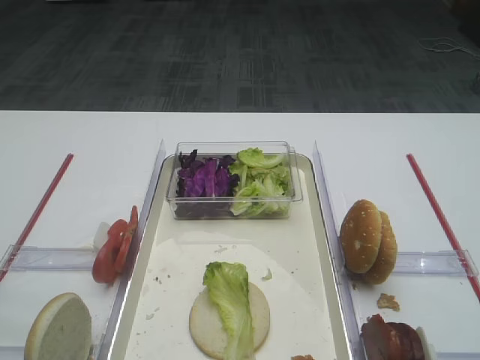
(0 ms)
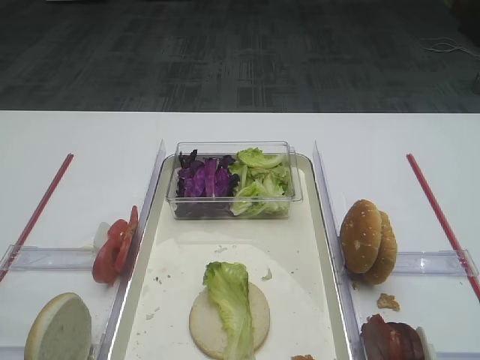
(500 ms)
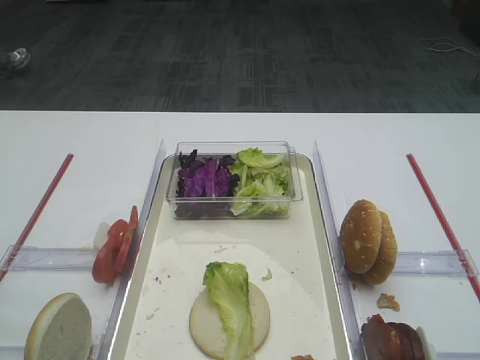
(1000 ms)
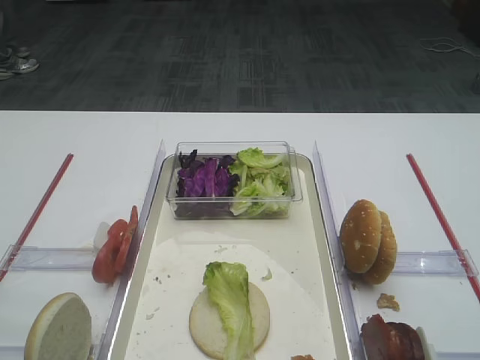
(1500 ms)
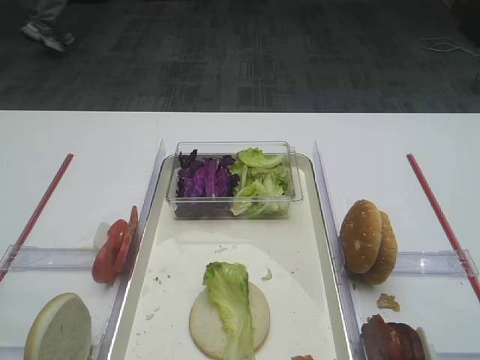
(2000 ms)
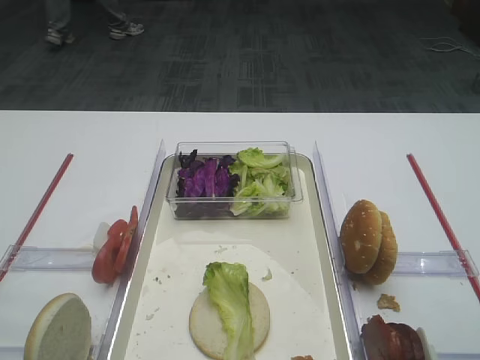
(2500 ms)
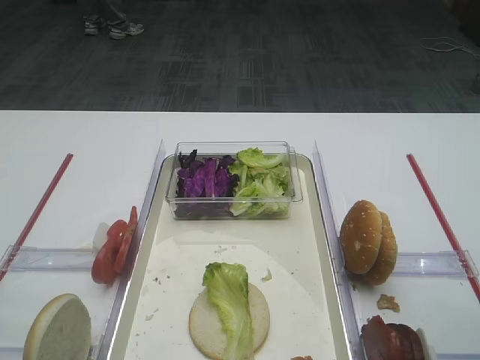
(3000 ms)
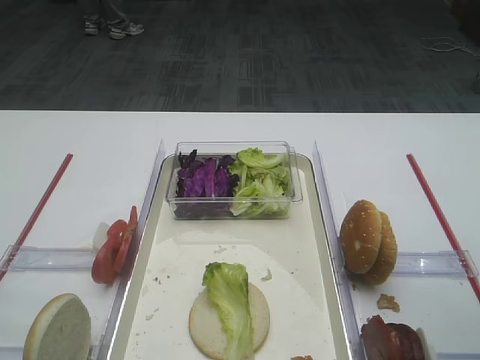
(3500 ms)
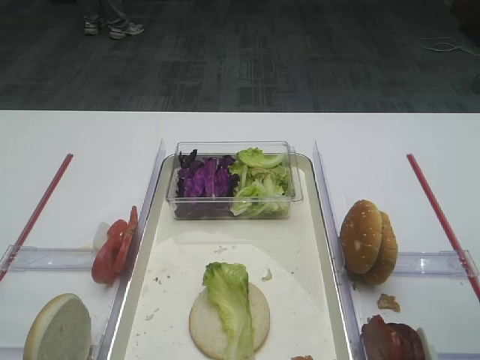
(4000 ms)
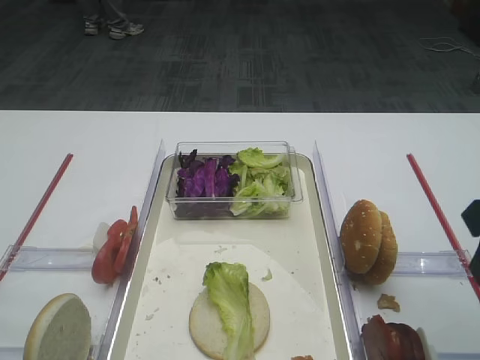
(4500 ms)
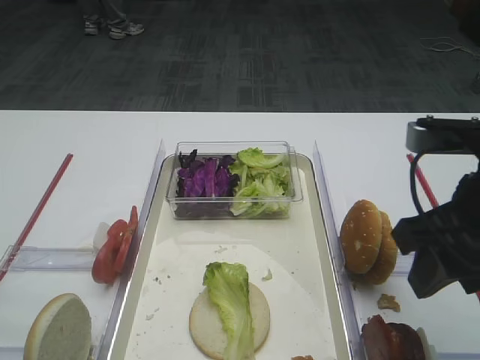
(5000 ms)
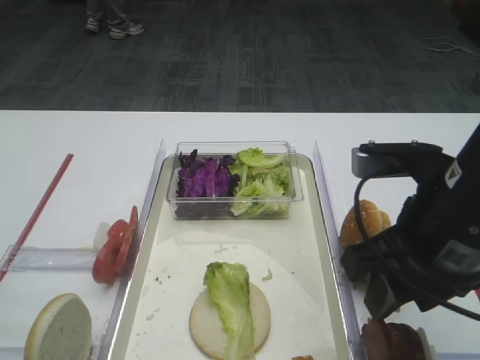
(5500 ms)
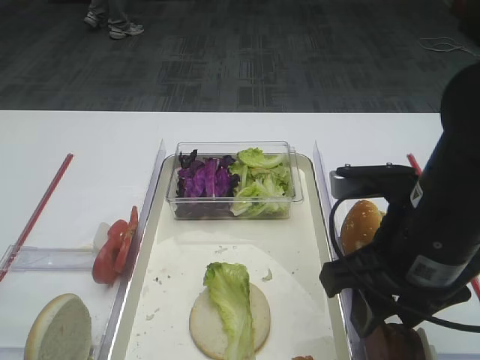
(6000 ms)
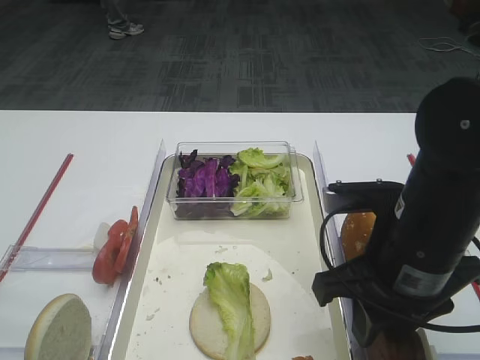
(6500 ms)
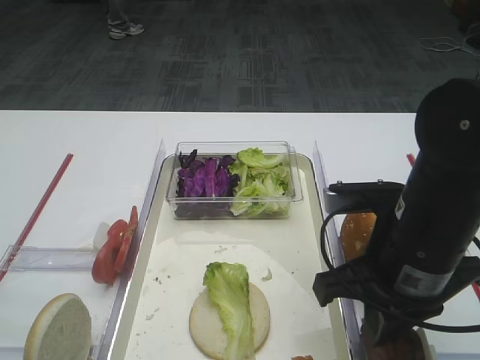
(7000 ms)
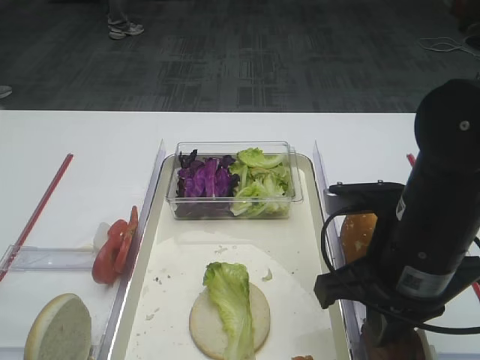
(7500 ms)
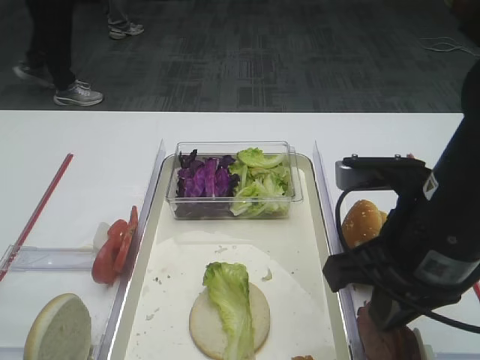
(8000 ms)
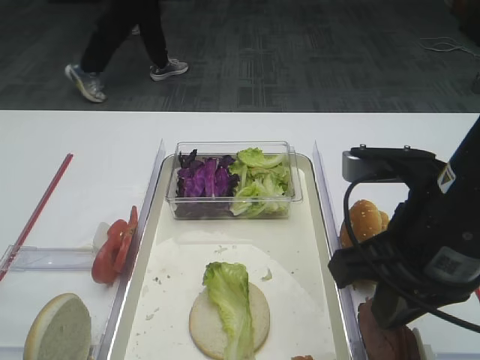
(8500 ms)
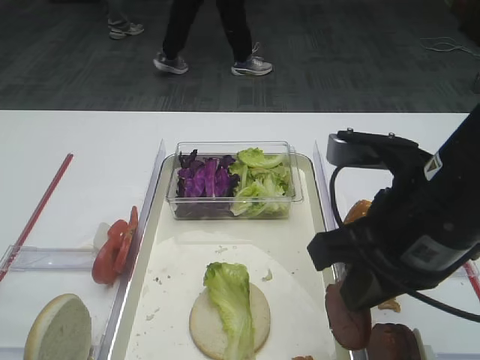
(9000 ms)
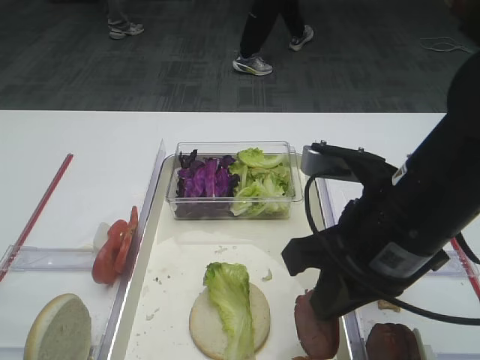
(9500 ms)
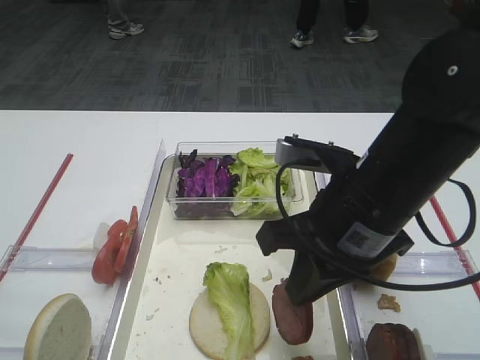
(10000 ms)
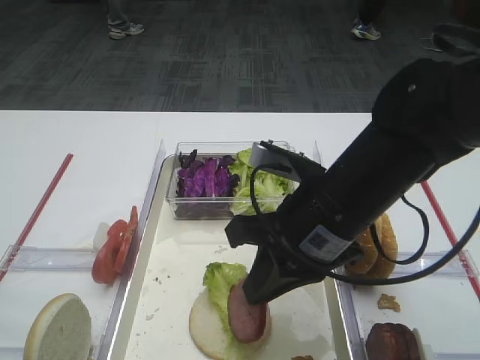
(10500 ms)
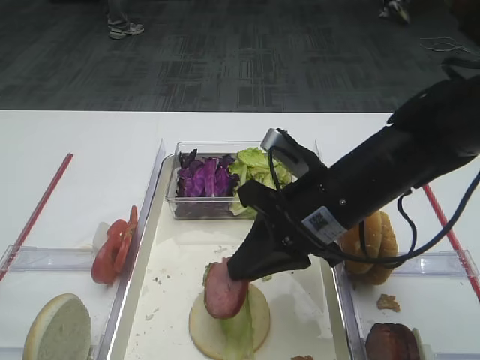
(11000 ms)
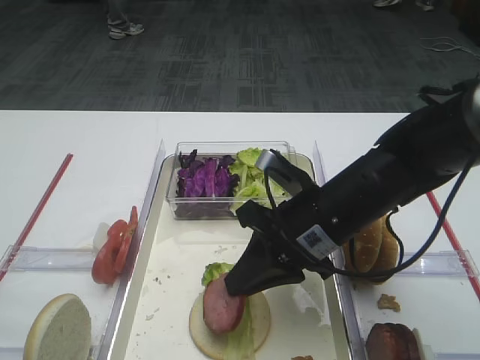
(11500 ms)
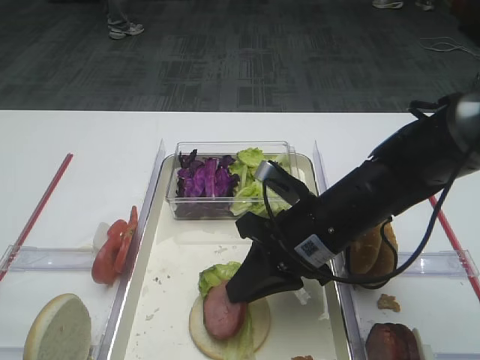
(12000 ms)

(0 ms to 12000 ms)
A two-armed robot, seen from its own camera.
Step, 0 ms - 9000 ms: Pick up the cutlet with the right gripper.
4000 ms - 6000 ms: The right gripper goes approximately 15 cm to the left and downward.
6000 ms - 8000 ms: The right gripper closes.
8000 ms - 10000 ms: The right gripper changes place by approximately 5 cm.
10000 ms - 12000 ms: The right gripper moves downward, about 10 cm.

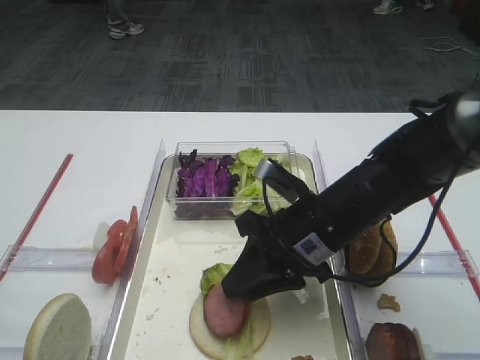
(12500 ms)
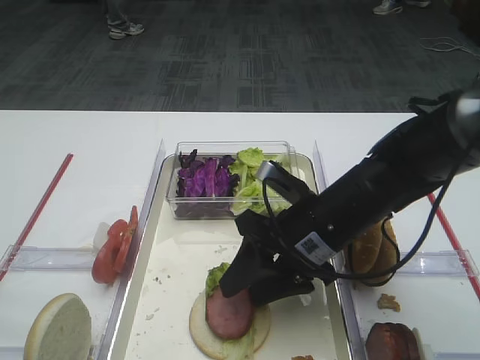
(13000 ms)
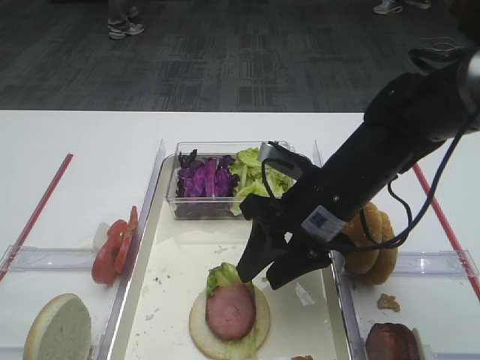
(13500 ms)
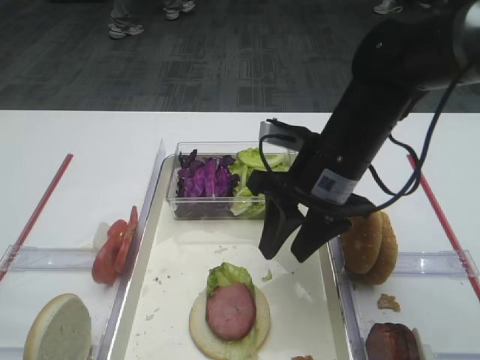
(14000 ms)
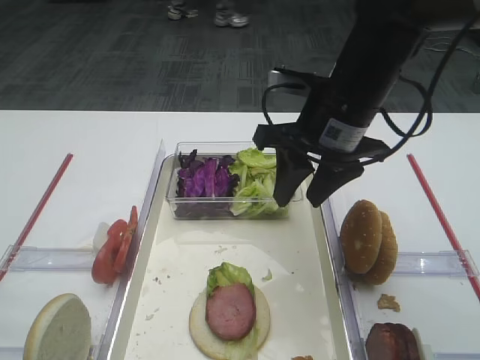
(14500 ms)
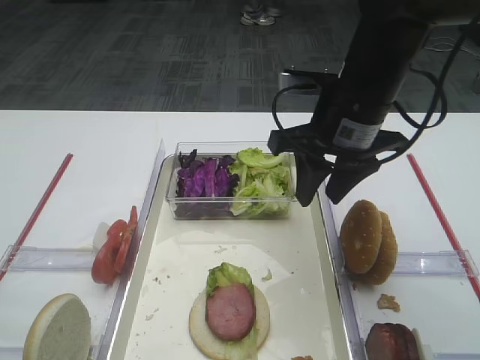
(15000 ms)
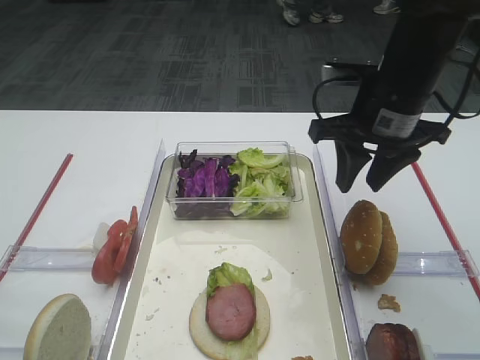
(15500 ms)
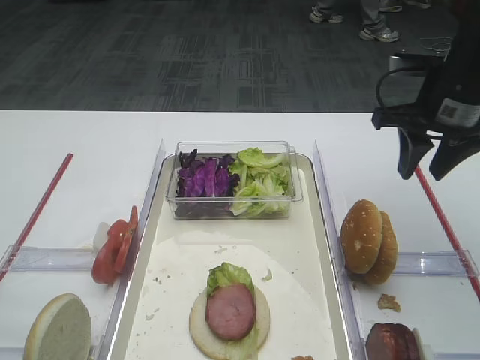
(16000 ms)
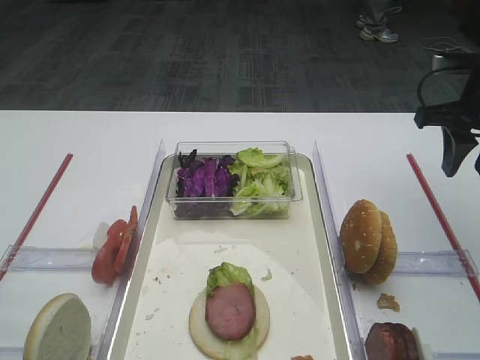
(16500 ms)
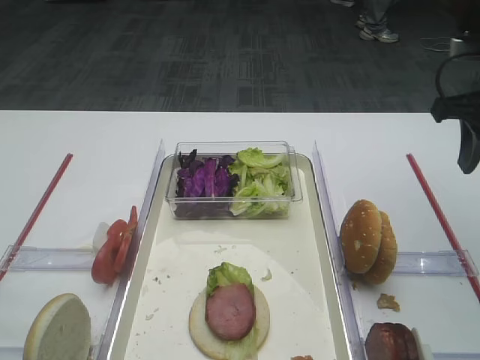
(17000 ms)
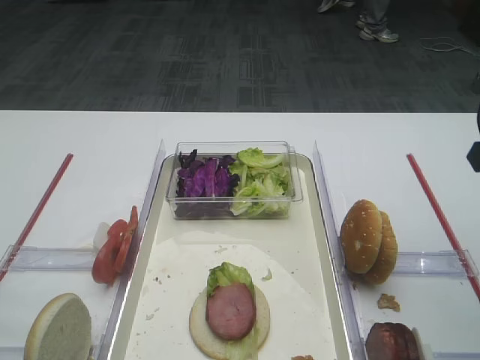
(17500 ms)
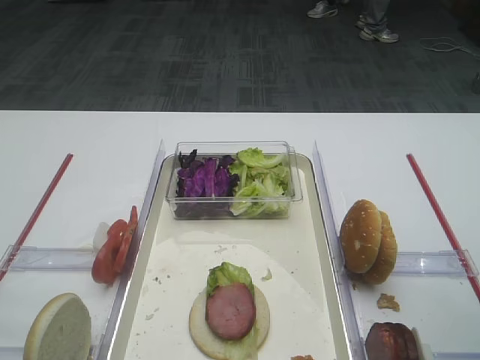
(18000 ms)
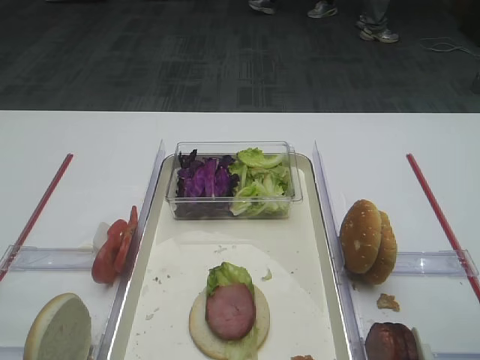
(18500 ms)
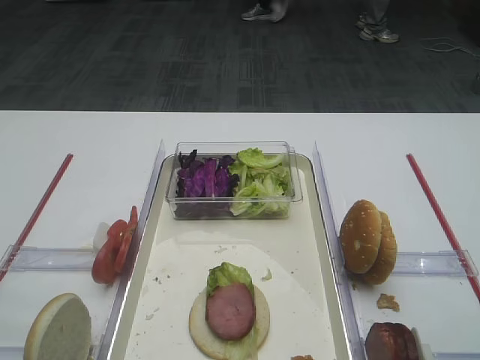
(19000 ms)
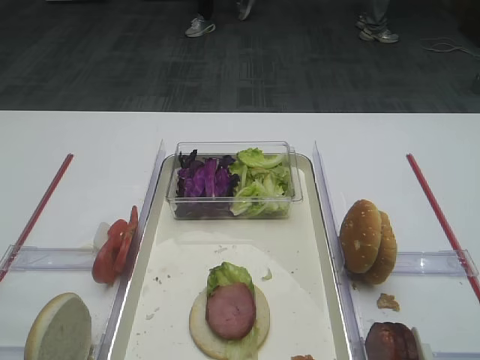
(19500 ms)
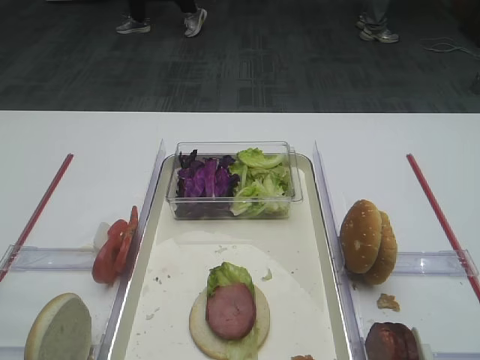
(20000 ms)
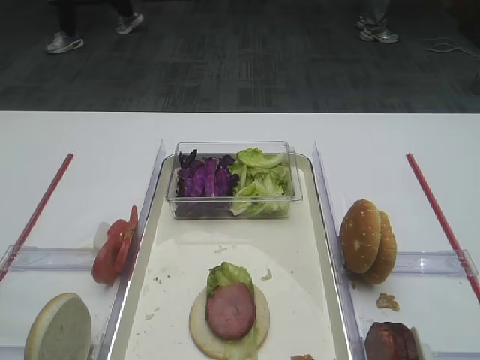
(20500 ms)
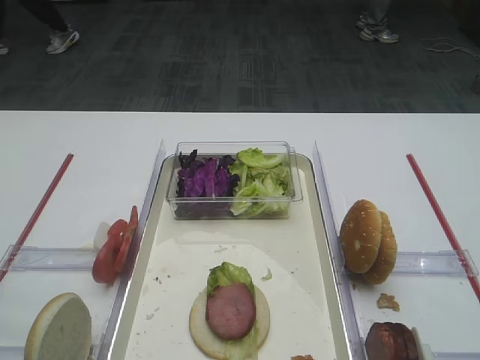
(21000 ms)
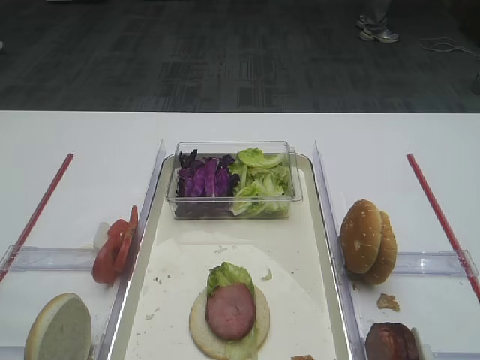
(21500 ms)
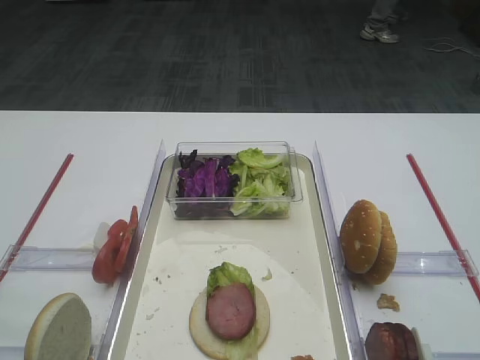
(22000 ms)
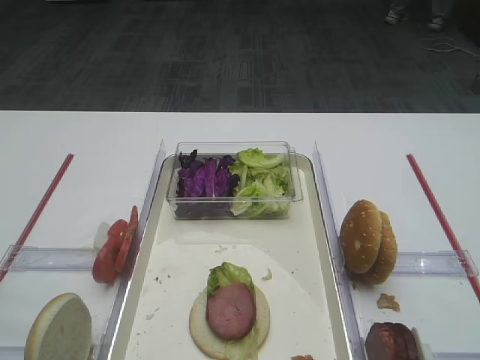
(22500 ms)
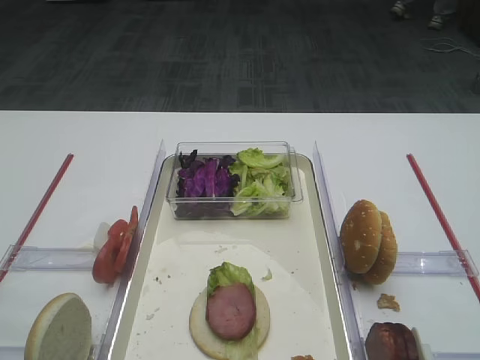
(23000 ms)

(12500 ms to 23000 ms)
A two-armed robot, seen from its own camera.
12500 ms - 14500 ms: The right gripper moves upward and forward, roughly 10 cm, and opens.
14500 ms - 16500 ms: The right gripper travels to the right by about 20 cm.
16500 ms - 19000 ms: The right gripper is displaced backward by approximately 30 cm.
21000 ms - 23000 ms: Both grippers stay put.

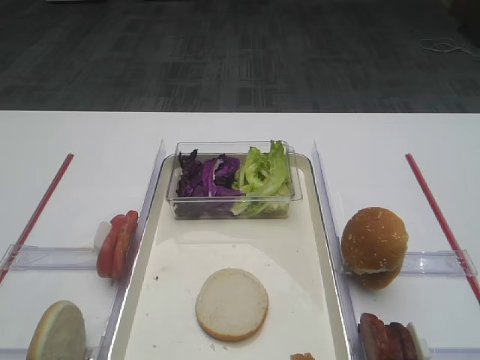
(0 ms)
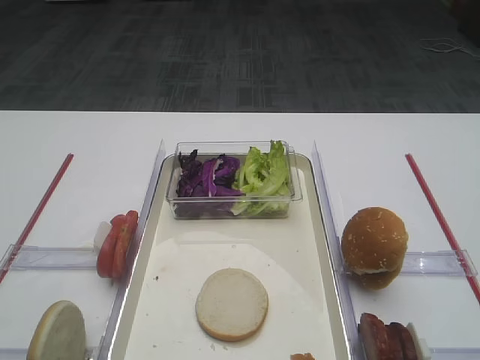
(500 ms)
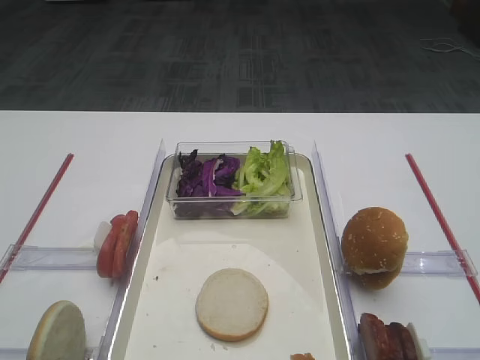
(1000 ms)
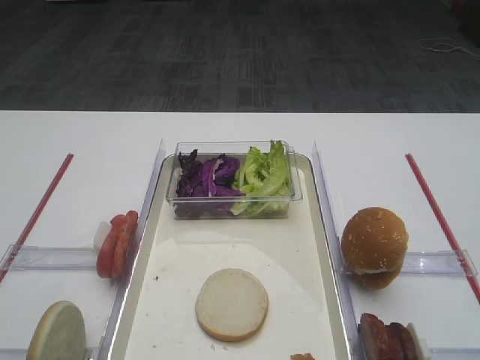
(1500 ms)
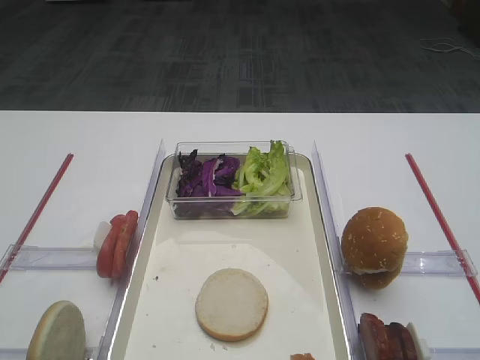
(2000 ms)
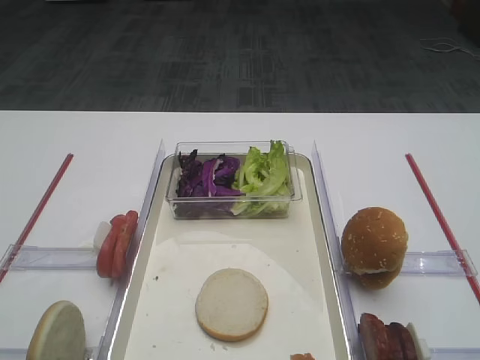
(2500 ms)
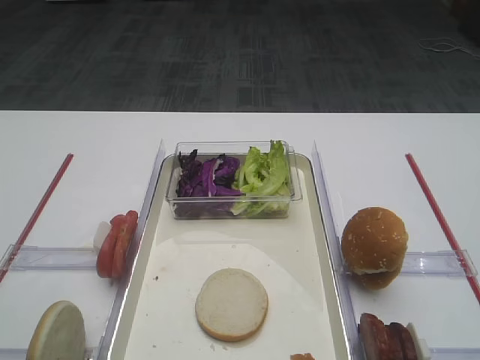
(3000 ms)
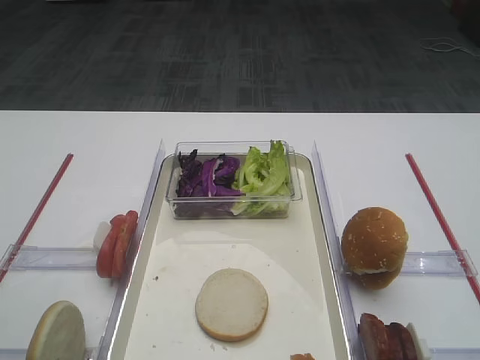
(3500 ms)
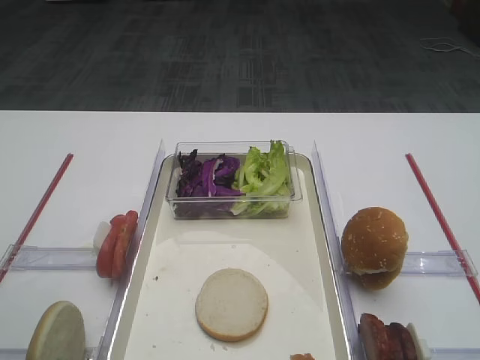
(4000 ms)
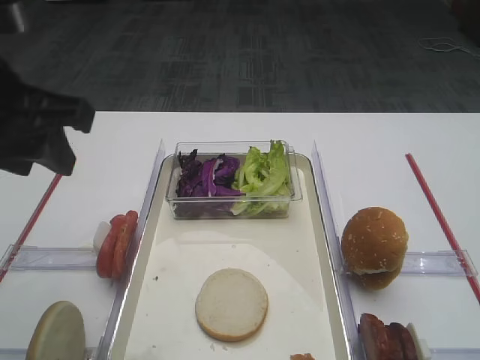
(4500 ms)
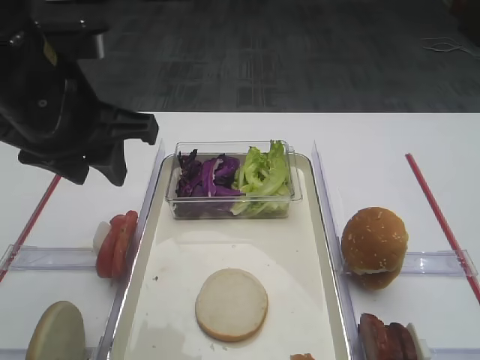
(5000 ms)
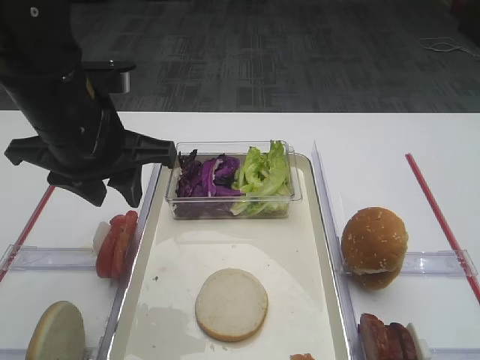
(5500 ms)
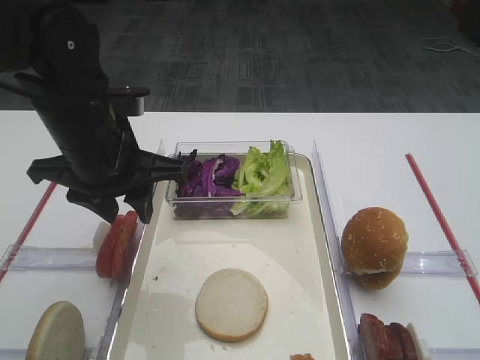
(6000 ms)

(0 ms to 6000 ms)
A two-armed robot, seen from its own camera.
4000 ms - 6000 ms: The left gripper shifts approximately 20 cm forward, to the right and downward.
